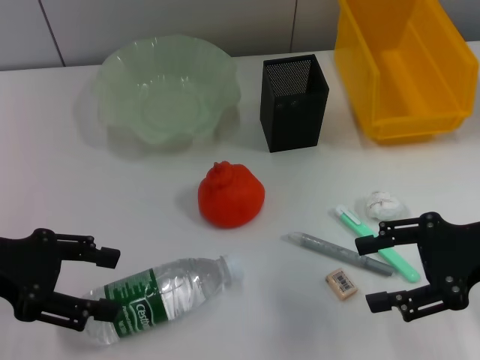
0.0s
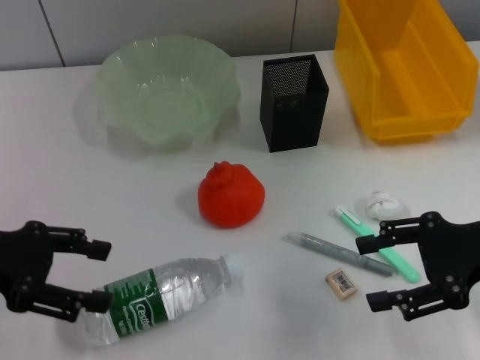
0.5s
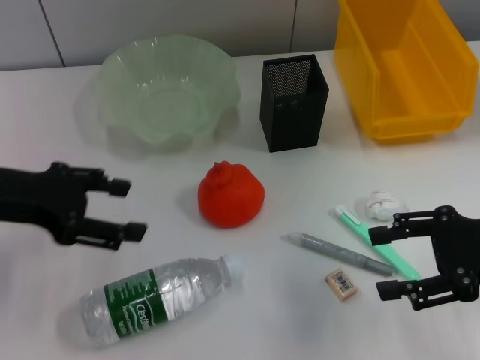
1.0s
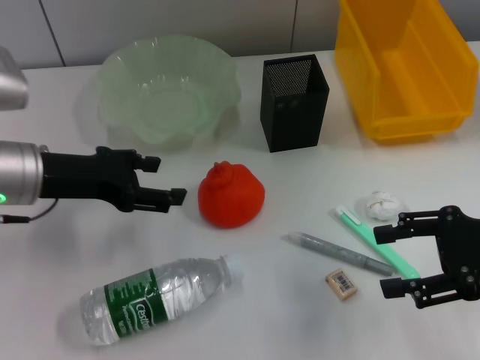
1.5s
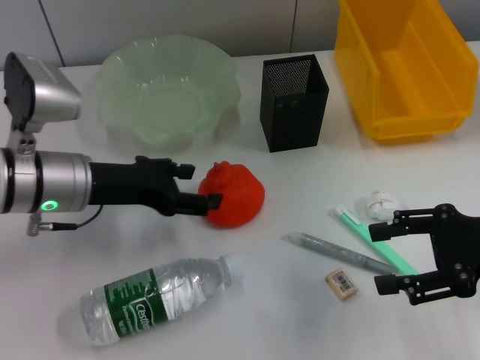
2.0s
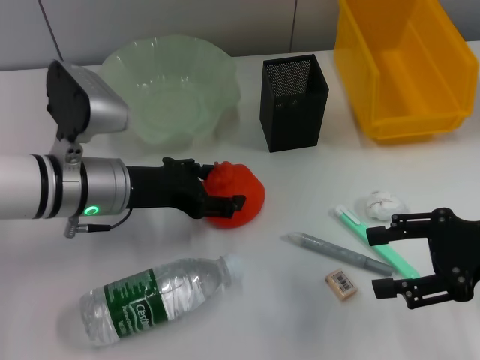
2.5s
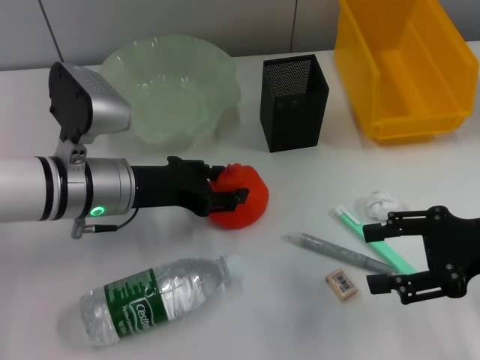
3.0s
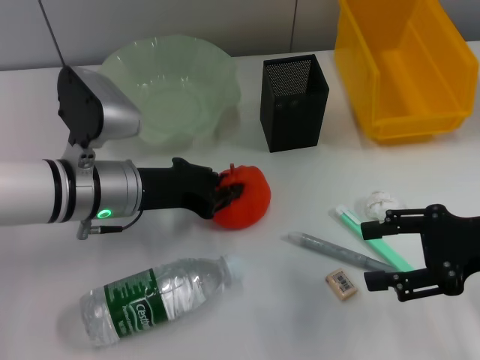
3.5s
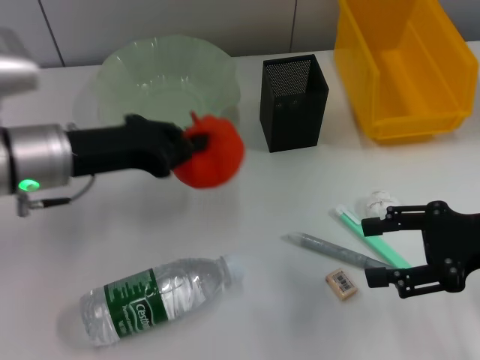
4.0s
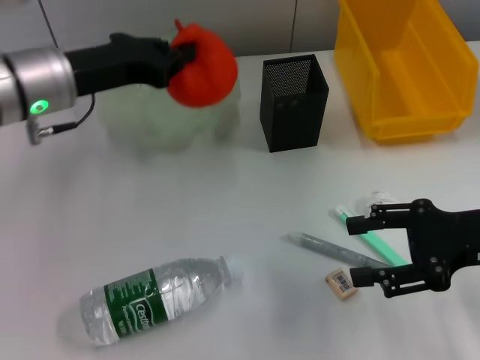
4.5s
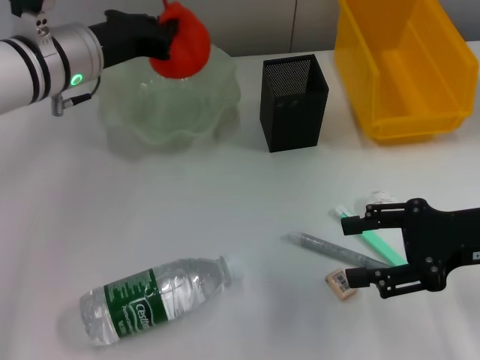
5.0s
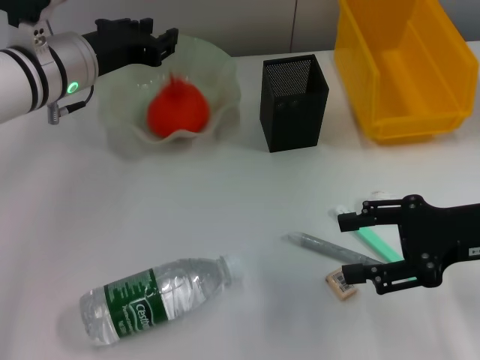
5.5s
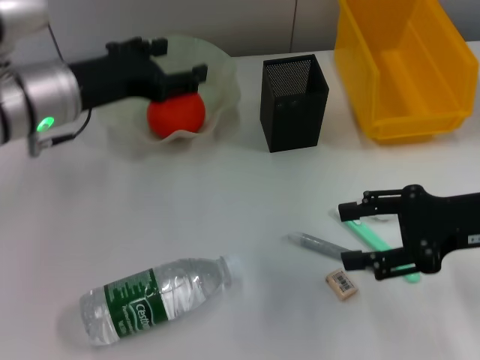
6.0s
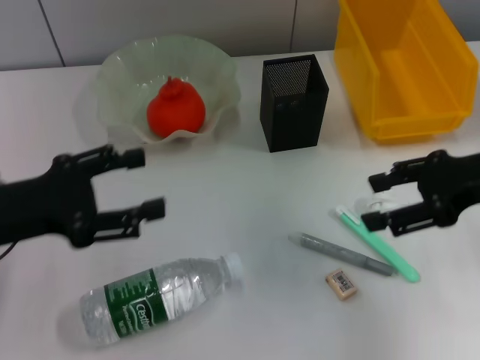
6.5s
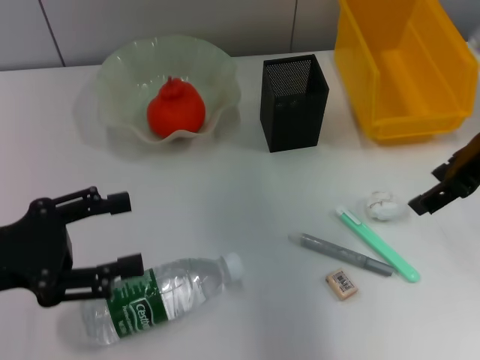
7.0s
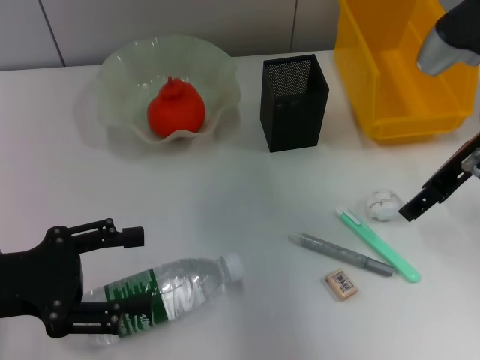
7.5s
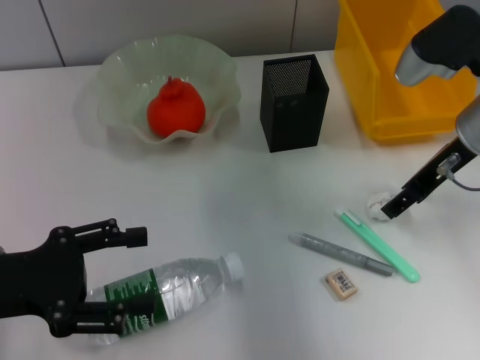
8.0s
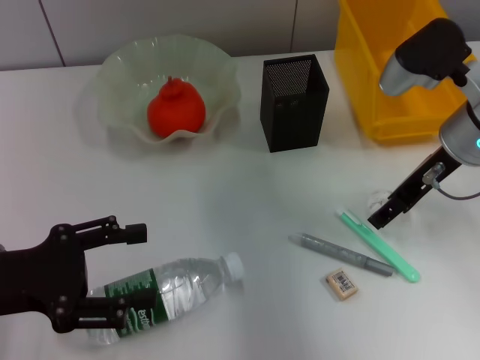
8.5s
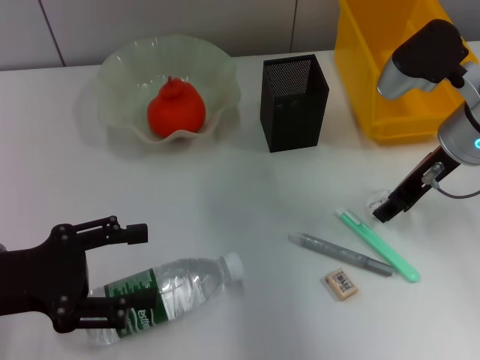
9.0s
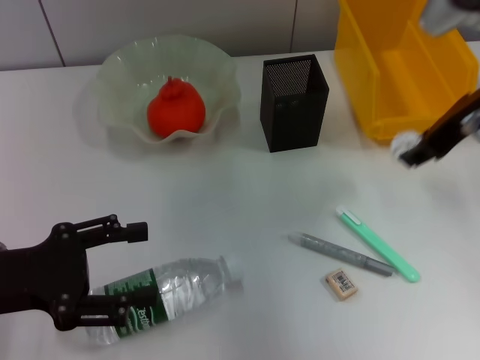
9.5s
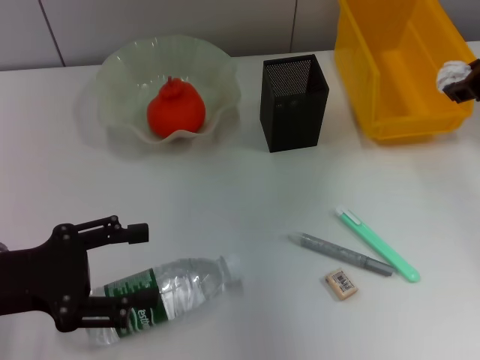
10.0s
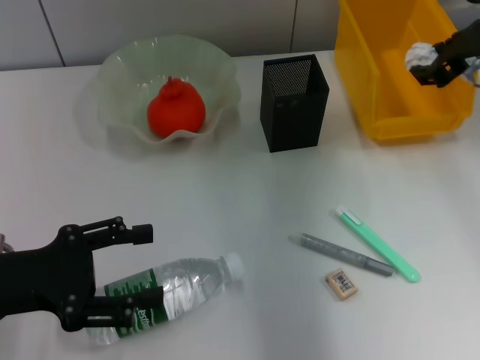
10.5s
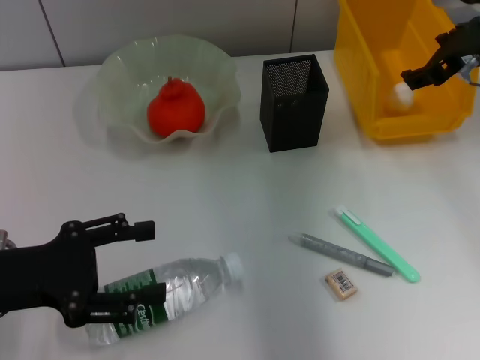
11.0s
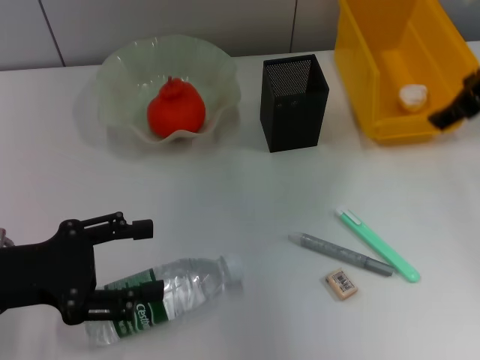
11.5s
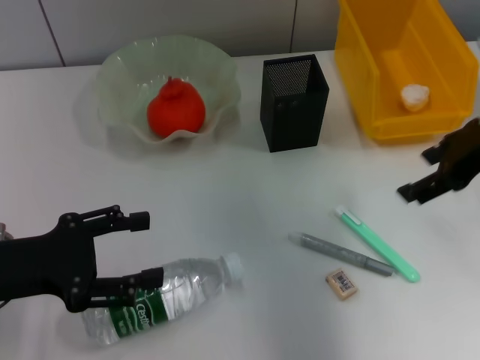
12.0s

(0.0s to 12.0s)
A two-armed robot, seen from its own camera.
Step, 0.0s - 3.0s: Grab the orange with the left hand.
Step, 4.0s - 5.5s: Place the orange into the fruit bowl with the left hand.
Step, 6.0s - 8.5s: Grab the paper ball with the right hand.
Step, 9.0s - 10.5s: Place the paper ball into the trash can with the right hand.
0.0s - 2.0s: The left gripper is displaced to the right and forward by roughly 10 cm.
2.0s - 4.0s: The left gripper closes up.
4.0s - 6.0s: The left gripper opens.
6.0s - 8.0s: The left gripper heads backward and to the left, covering approximately 15 cm. Meanwhile the right gripper travels forward by roughly 10 cm.
8.0s - 10.0s: The right gripper shifts approximately 10 cm upward, and closes up.
10.0s - 12.0s: The right gripper shifts by approximately 5 cm, and opens up.

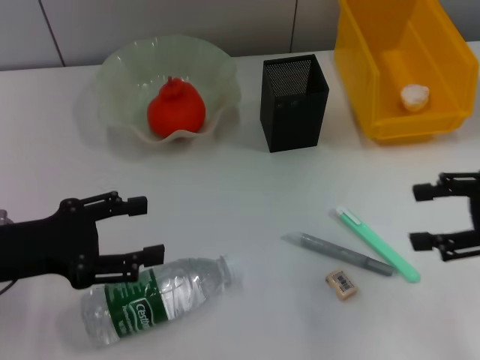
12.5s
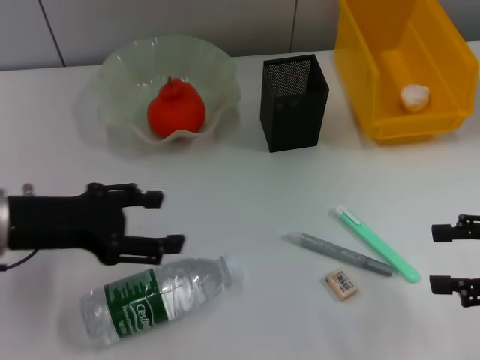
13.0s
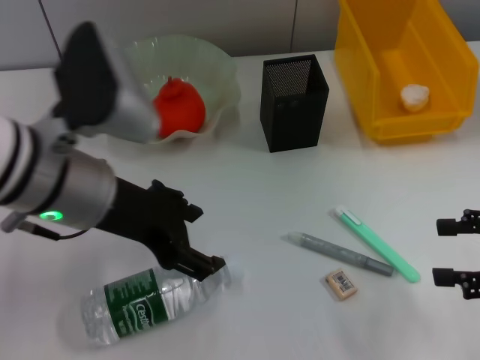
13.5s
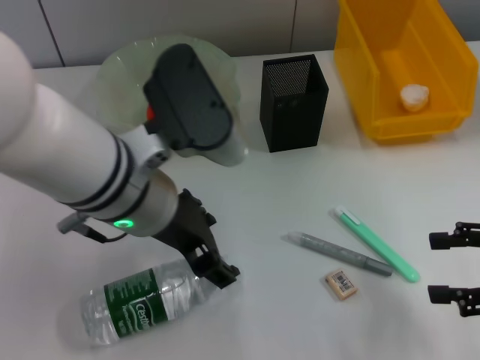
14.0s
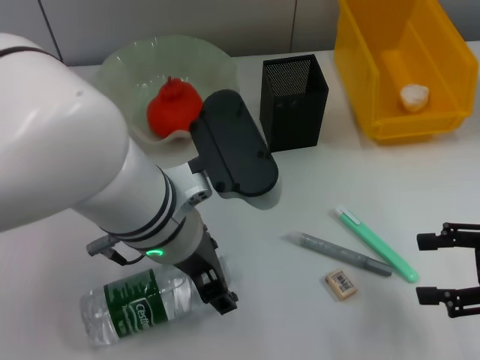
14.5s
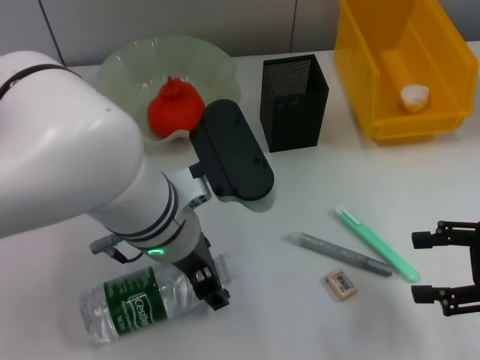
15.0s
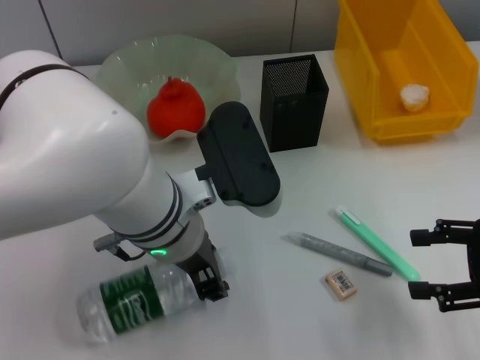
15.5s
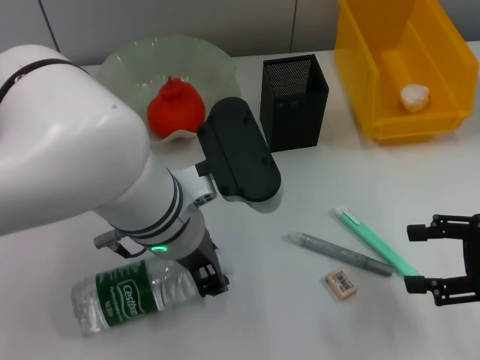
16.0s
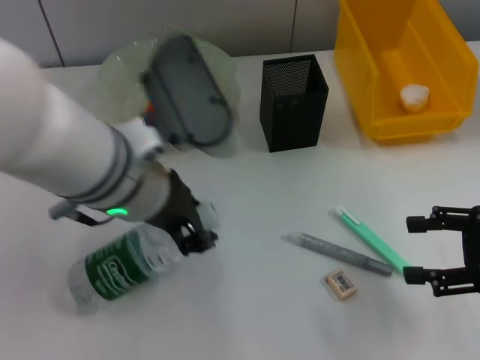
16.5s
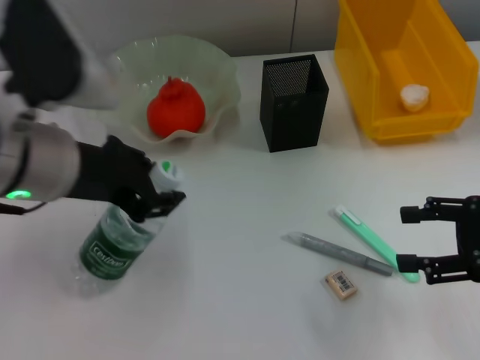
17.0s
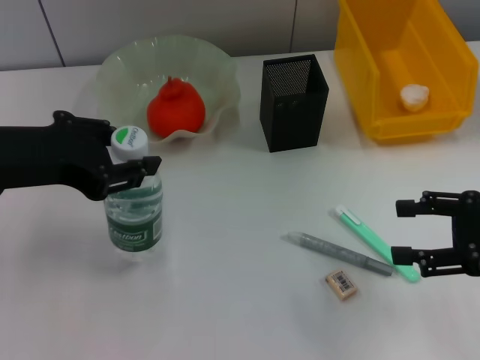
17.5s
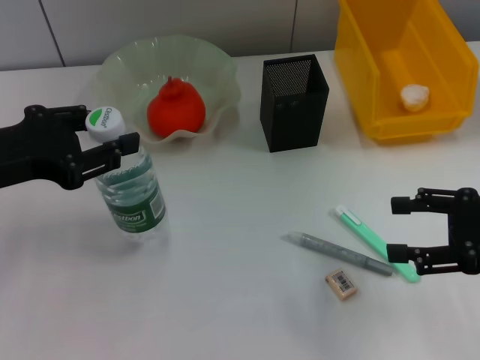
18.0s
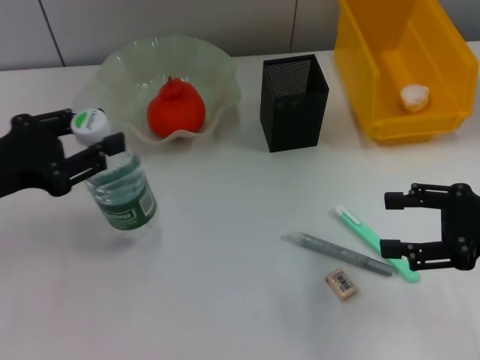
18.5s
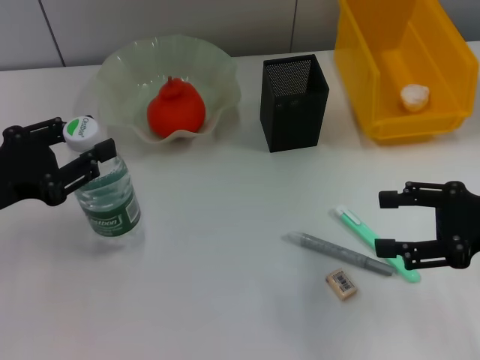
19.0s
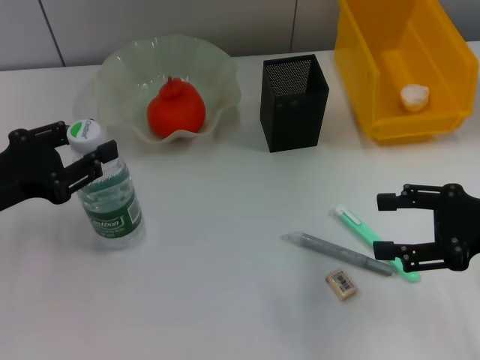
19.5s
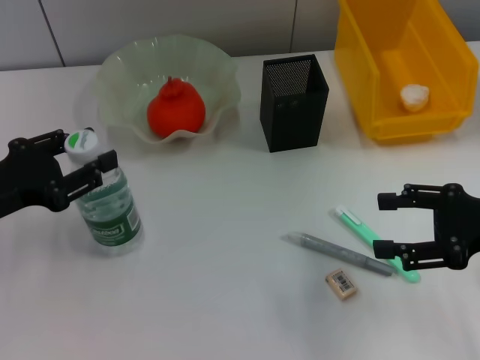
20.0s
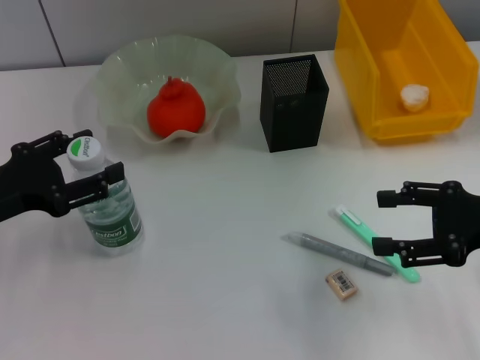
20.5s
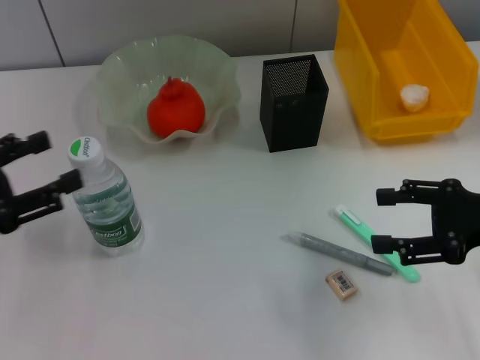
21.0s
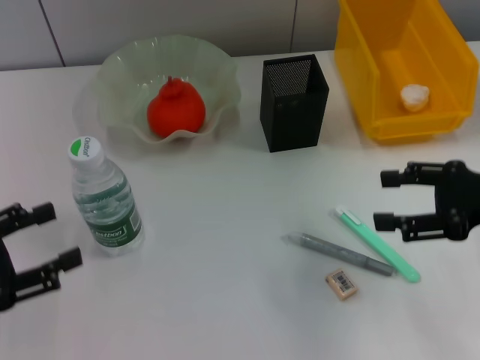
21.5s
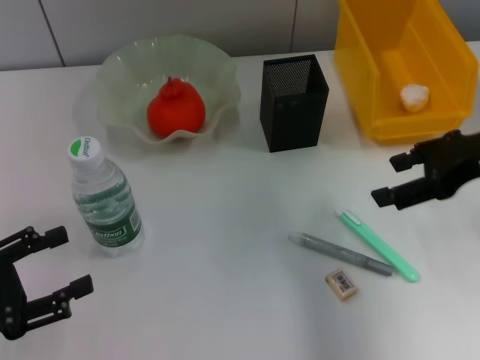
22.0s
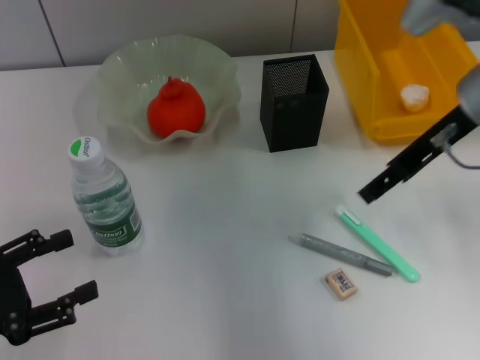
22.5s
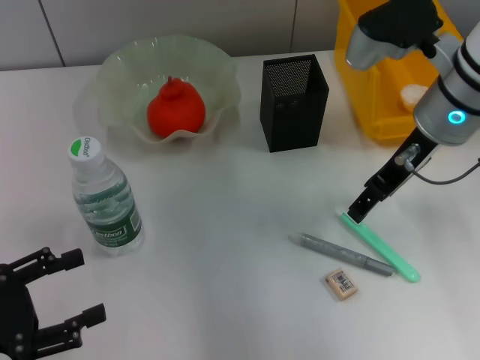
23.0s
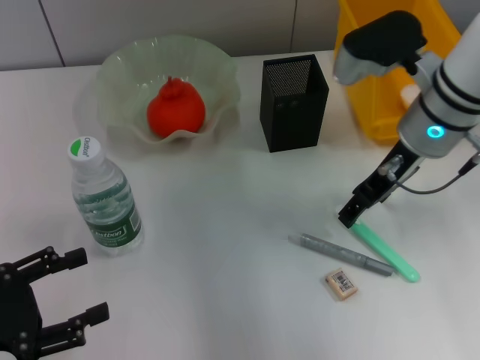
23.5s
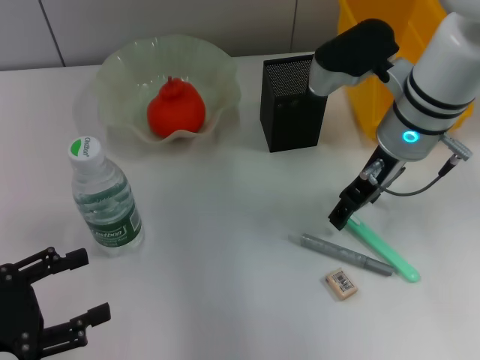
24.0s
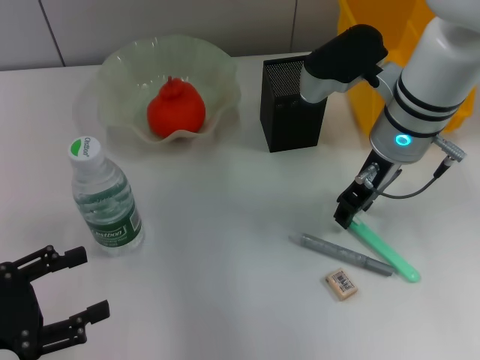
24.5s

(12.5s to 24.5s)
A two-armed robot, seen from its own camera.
Step, 12.5s - 15.5s: Grab the water bottle with the left hand.
Step, 16.0s - 20.5s: Place the water bottle on the table with the left hand.
12.5s - 14.5s: The right gripper moves some 5 cm. The left gripper shifts approximately 20 cm to the right.
14.5s - 16.5s: The left gripper closes.
16.5s - 18.5s: The left gripper shifts some 20 cm to the left.
18.5s - 20.5s: The grippers make only small movements.
20.5s - 22.5s: The right gripper moves forward, to the left and upward, some 15 cm; the left gripper goes about 10 cm backward.
22.5s - 24.5s: The right gripper travels to the left and downward by approximately 10 cm.

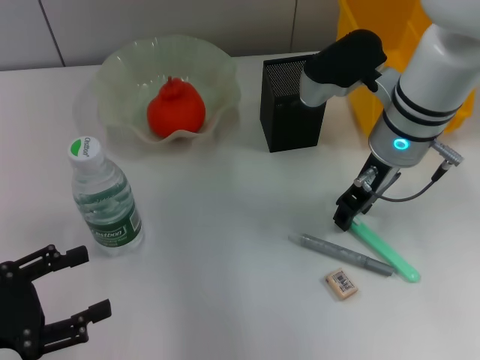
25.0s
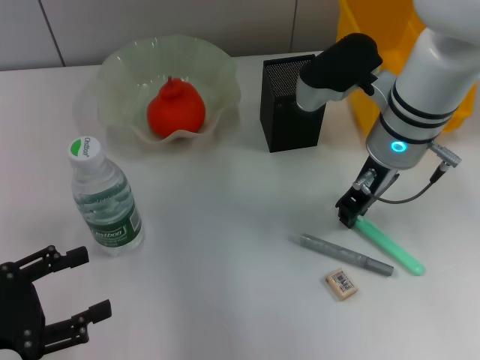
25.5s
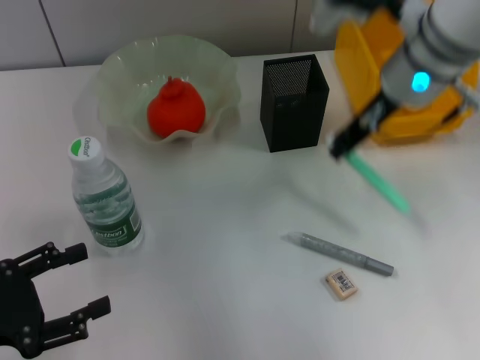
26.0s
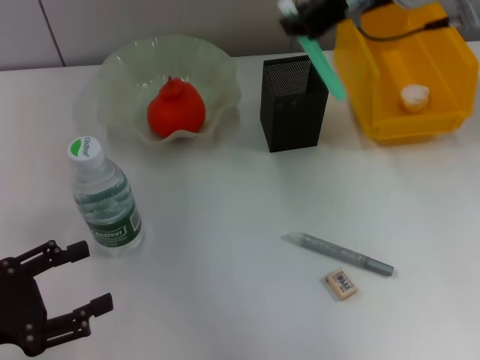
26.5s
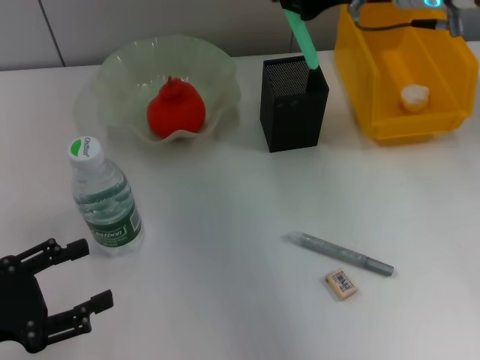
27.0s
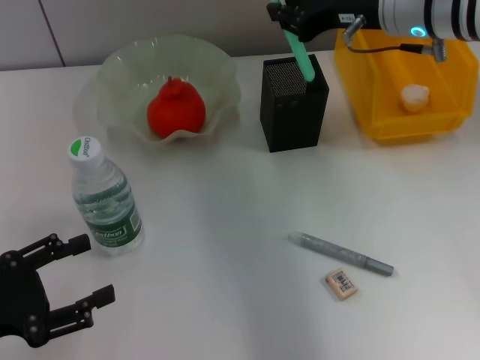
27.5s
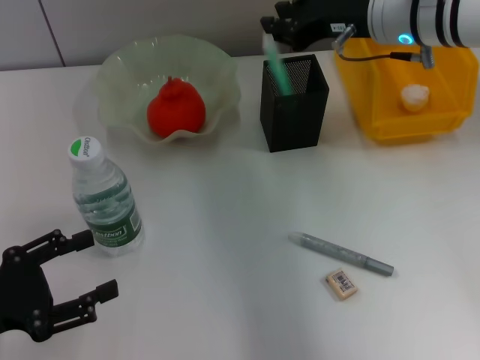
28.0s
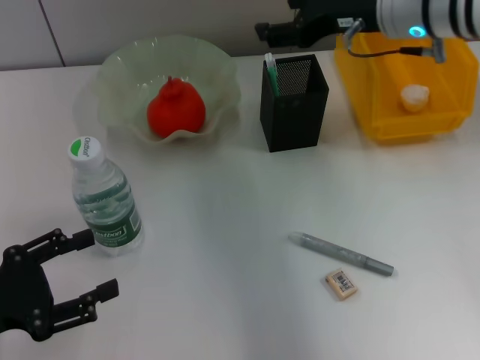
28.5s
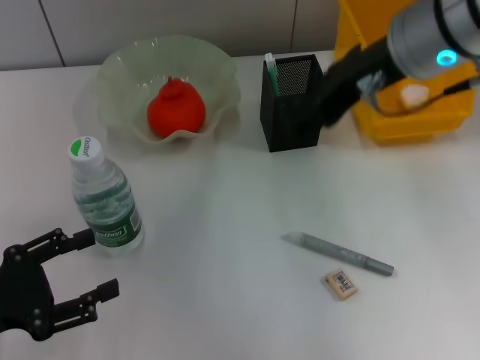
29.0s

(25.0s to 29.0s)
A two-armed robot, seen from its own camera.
Step, 25.5s - 28.0s: Place the blue utility knife into the pen holder with the right hand.
25.0s - 27.0s: The right gripper travels upward by roughly 10 cm, and closes.
27.0s - 29.0s: The right gripper moves backward, about 5 cm, and opens up.
